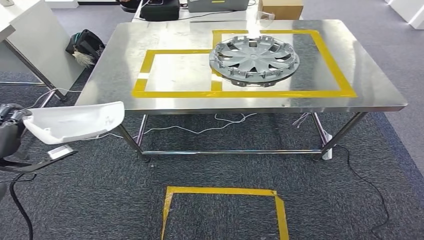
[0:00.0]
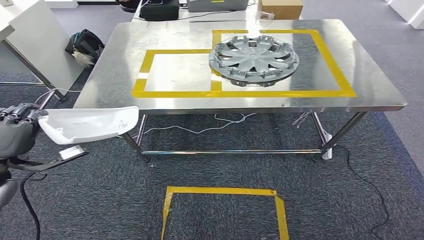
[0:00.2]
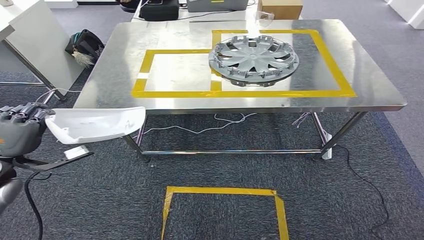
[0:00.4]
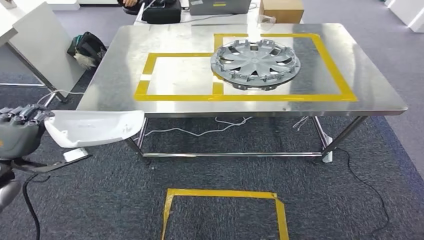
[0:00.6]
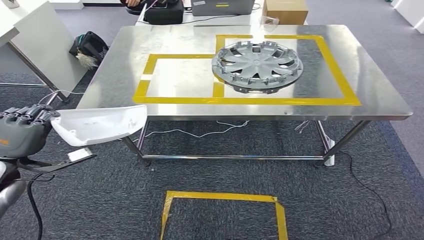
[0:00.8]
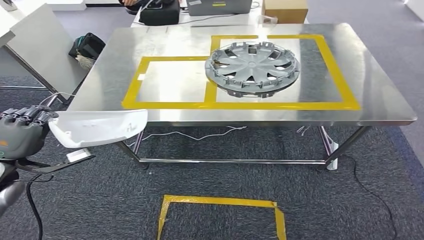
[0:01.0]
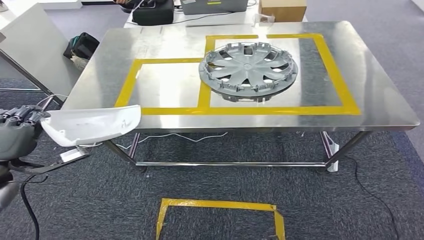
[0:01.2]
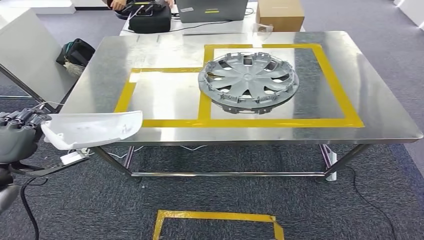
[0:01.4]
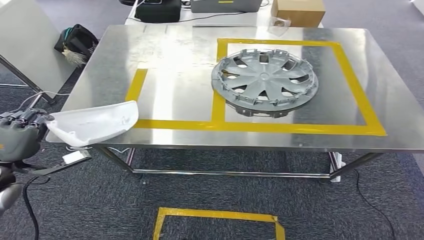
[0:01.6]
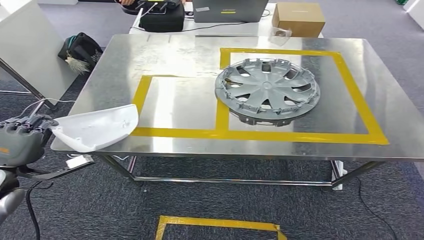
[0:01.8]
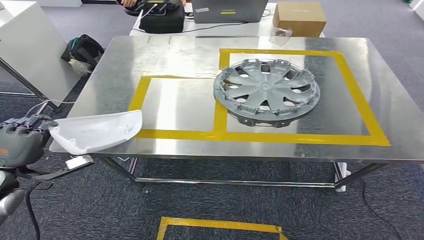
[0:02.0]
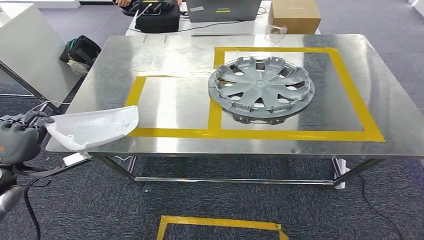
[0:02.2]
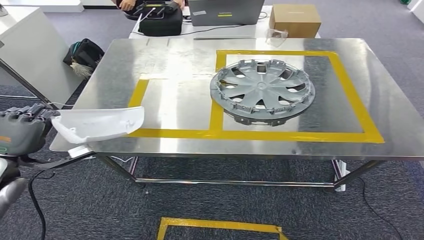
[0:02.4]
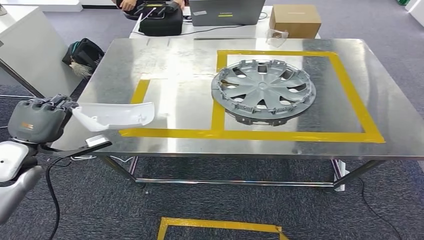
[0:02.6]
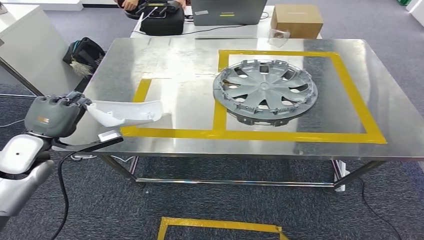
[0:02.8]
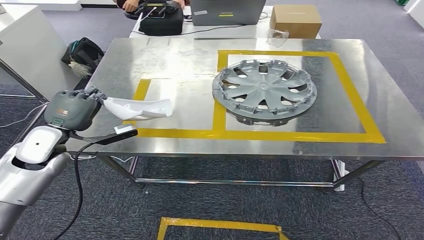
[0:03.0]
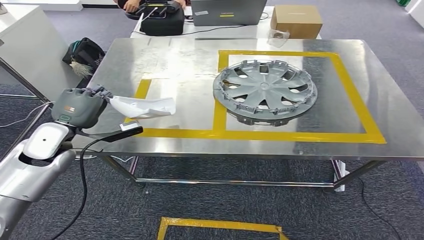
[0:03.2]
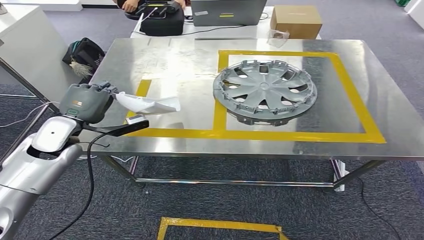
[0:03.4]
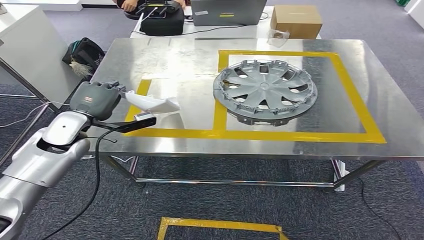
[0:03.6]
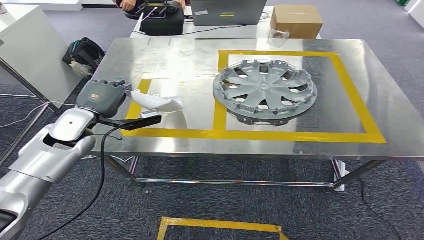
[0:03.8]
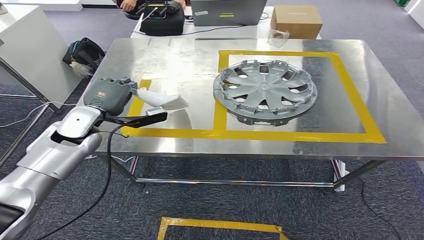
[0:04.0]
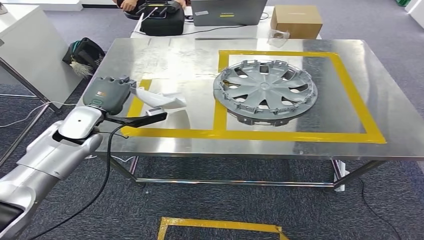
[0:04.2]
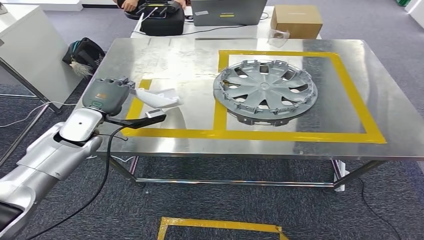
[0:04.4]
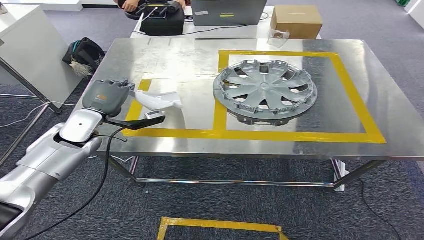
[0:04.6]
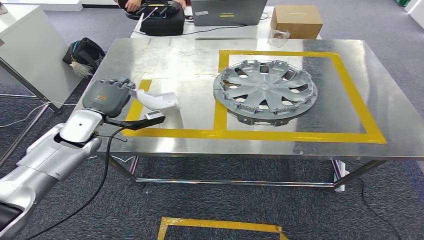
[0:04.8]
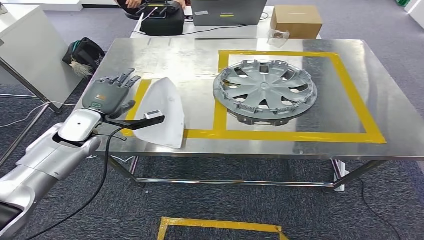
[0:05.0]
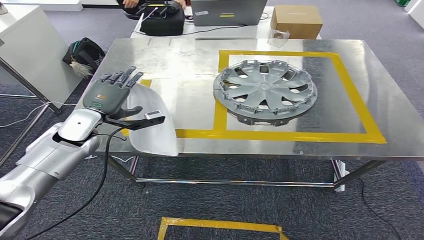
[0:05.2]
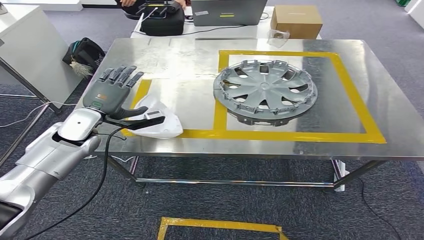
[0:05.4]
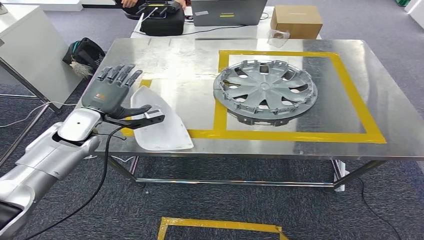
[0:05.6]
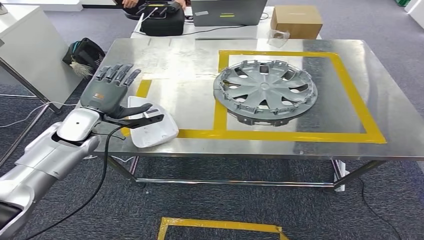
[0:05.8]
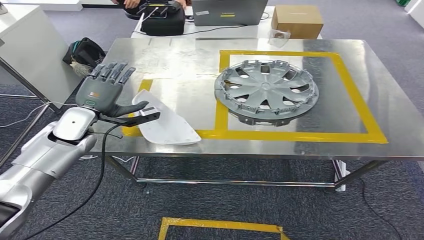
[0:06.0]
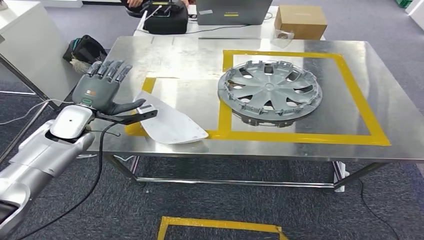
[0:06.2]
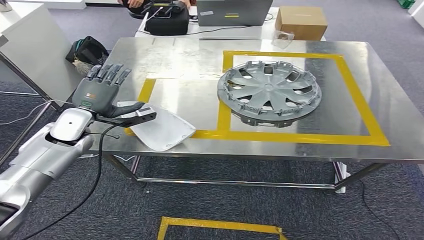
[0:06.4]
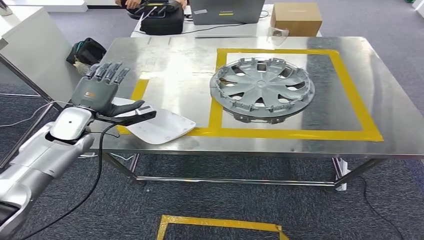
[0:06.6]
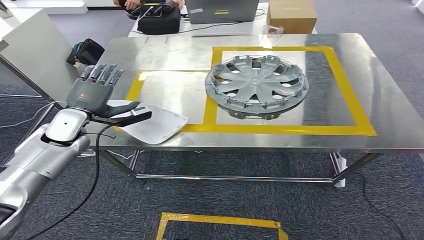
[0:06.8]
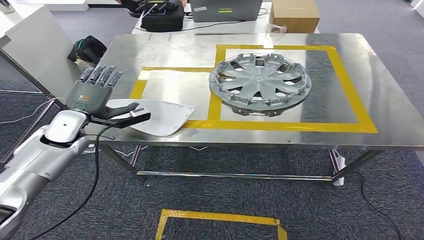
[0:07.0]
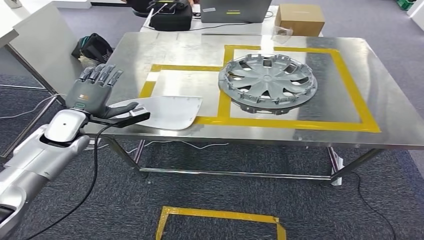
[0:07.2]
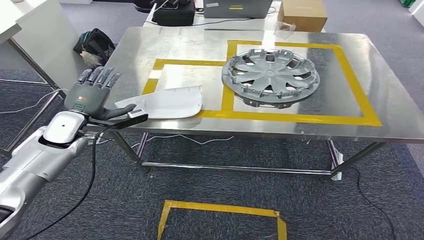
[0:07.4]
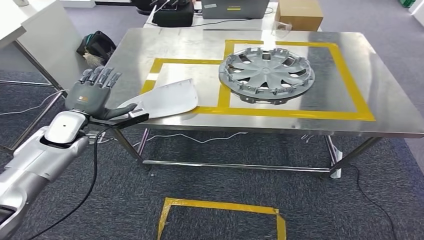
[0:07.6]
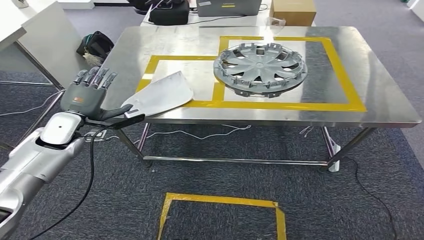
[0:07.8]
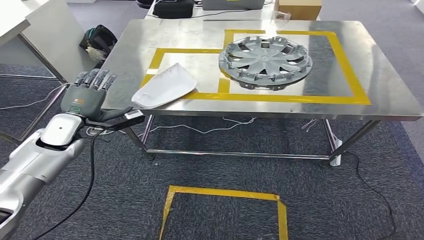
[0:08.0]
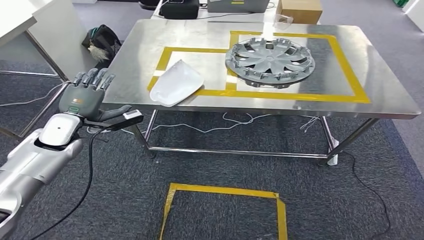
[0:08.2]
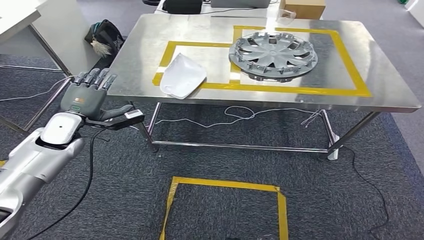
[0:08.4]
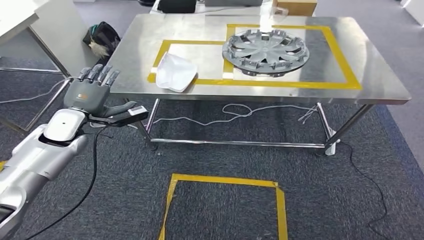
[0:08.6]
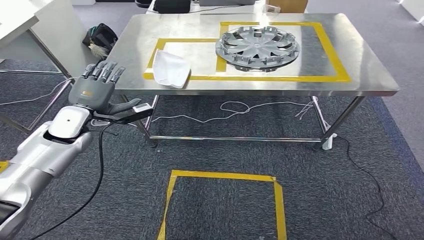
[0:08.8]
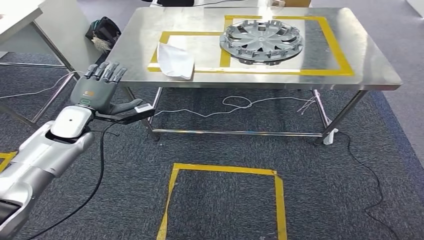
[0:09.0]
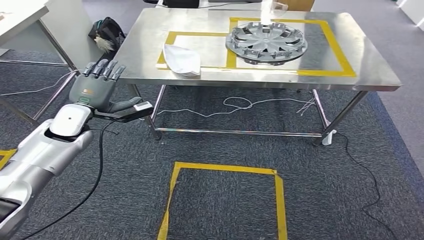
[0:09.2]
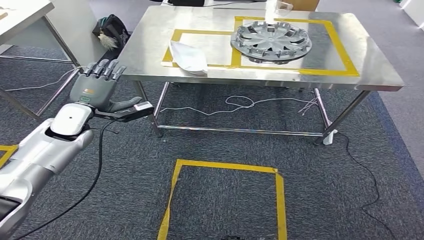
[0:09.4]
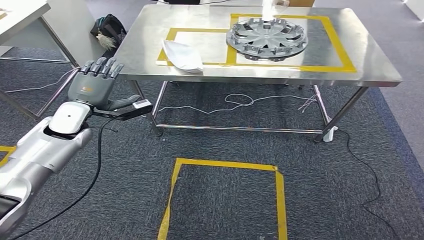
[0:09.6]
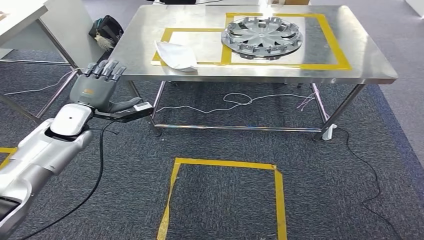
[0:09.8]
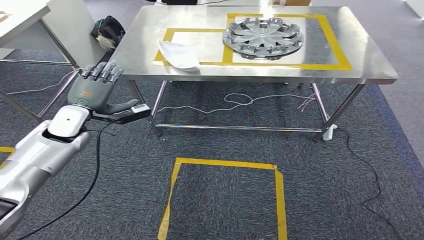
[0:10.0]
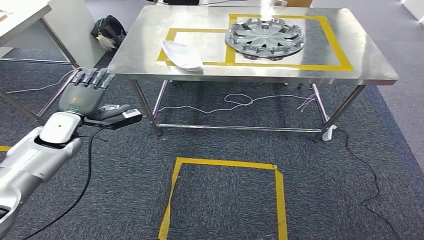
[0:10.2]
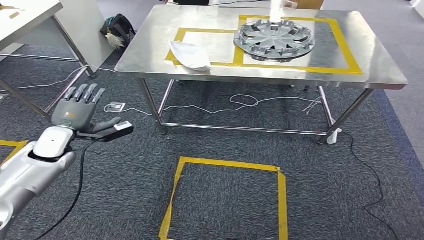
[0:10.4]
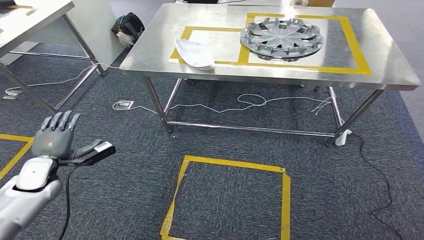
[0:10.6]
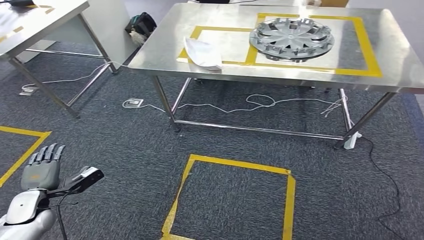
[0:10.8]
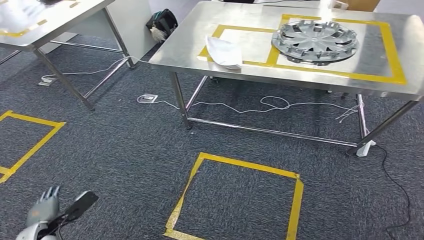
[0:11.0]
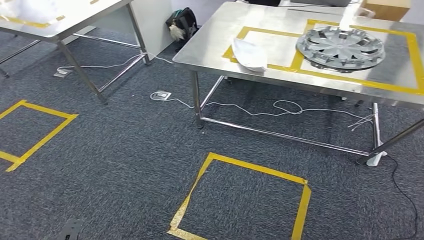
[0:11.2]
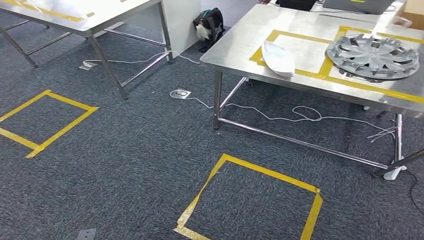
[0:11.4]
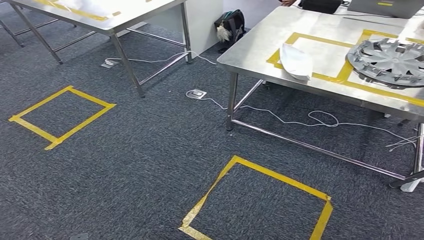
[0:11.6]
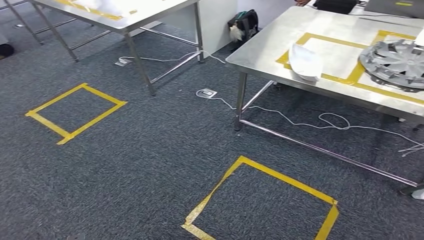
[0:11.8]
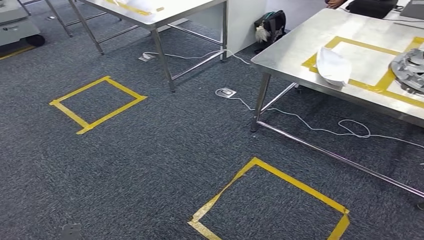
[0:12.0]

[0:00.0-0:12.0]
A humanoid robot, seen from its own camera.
Step, 0:00.0 to 0:07.8: Insert the small component into the corresponding slot on the workbench.
0:03.0 to 0:04.4: The left hand heads forward and to the right, covering approximately 10 cm.
0:04.4 to 0:06.0: The two hands keep their place.

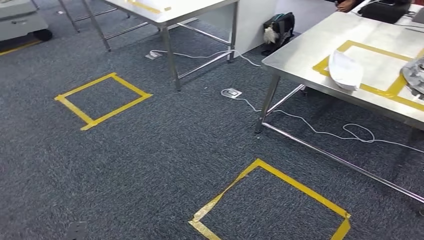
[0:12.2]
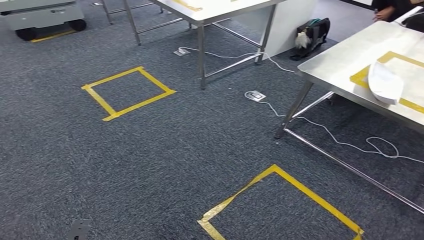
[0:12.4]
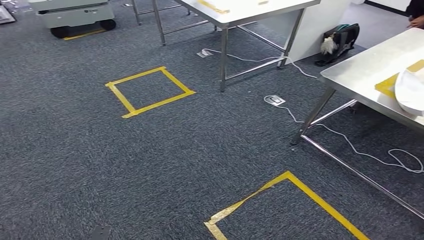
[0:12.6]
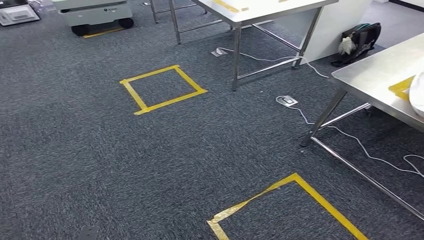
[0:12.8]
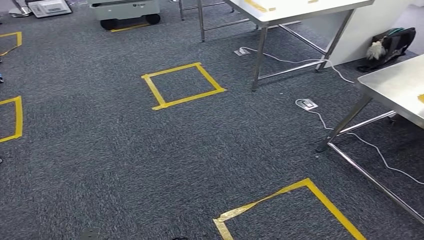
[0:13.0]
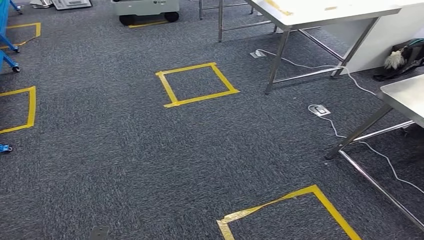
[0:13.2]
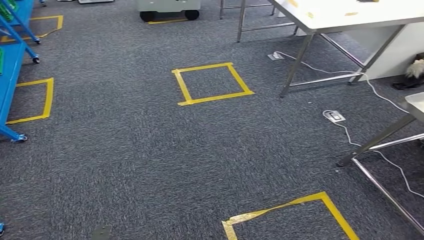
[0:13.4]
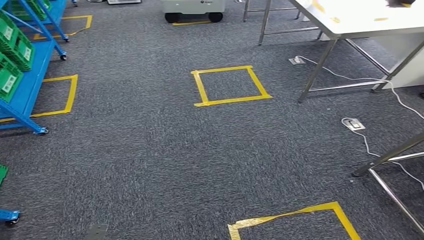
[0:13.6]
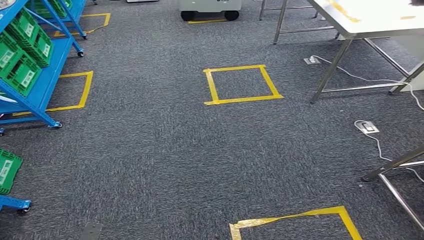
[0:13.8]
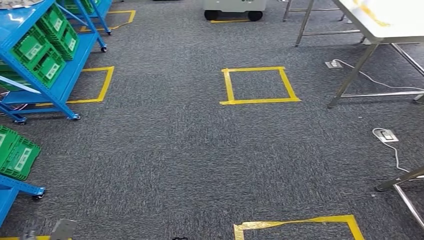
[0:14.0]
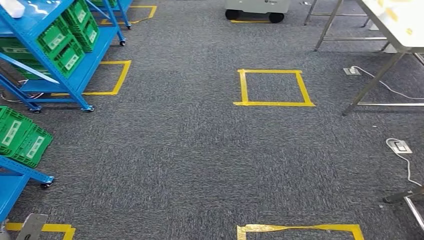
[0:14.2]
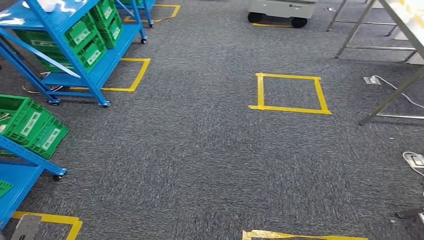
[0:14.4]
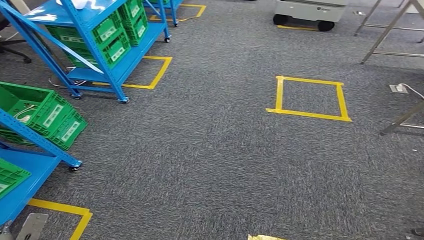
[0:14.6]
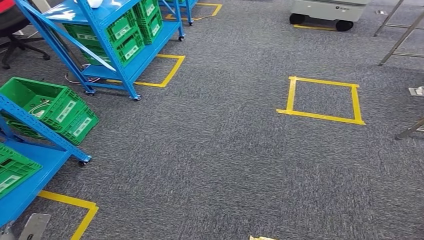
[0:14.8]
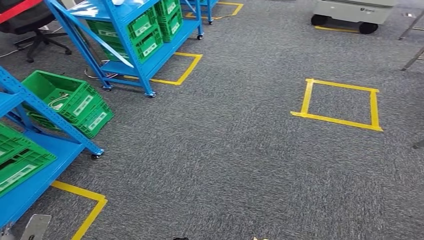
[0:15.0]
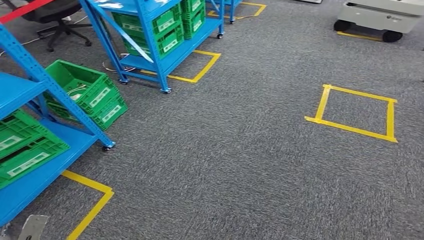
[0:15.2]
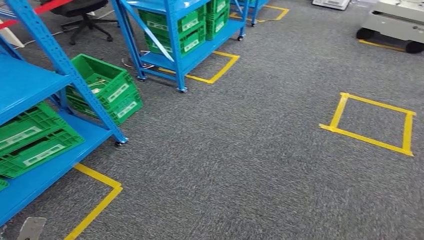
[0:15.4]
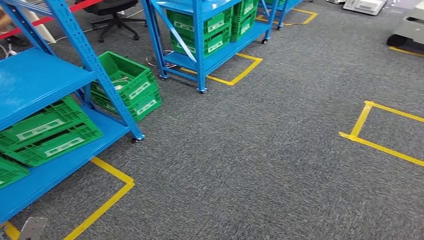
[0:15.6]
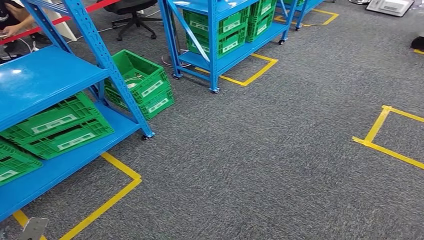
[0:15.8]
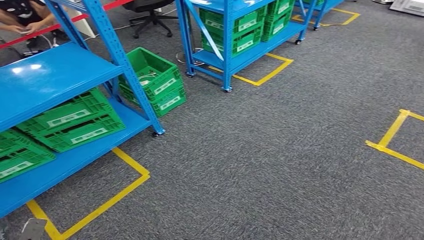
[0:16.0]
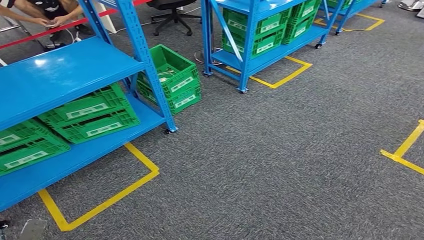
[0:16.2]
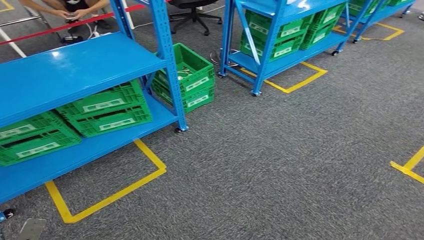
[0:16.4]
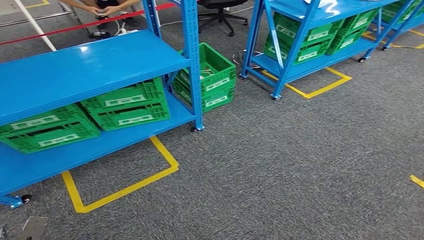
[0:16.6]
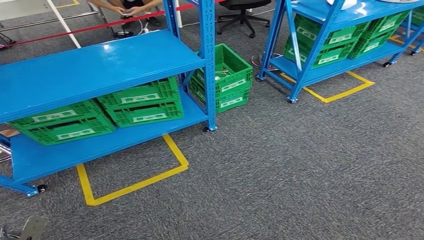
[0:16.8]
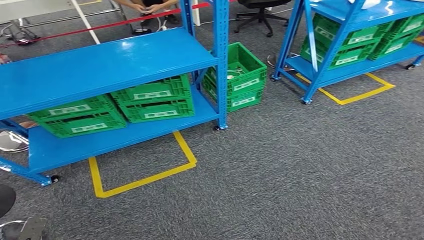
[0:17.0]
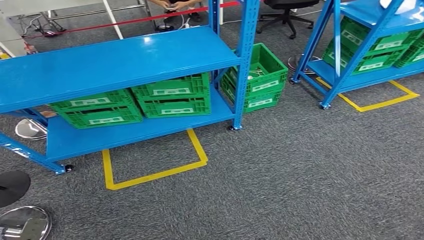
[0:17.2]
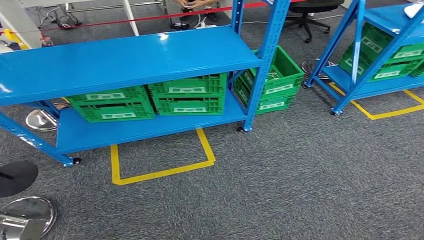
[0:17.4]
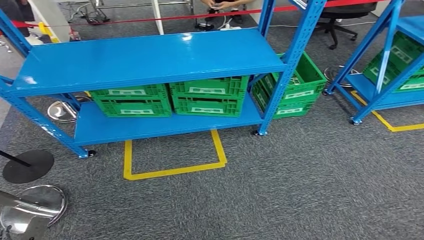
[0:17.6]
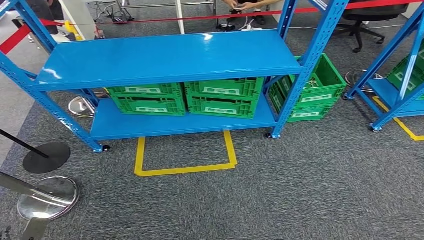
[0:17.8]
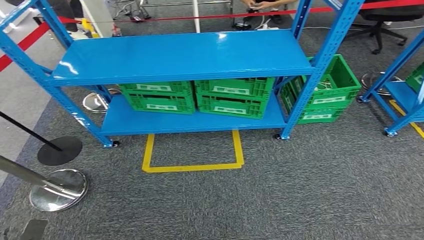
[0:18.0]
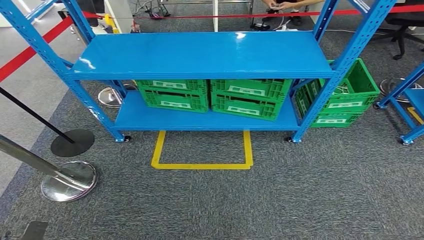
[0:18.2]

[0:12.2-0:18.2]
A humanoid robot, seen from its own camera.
Step, 0:12.2 to 0:18.2: Return to the initial position at the workbench.
